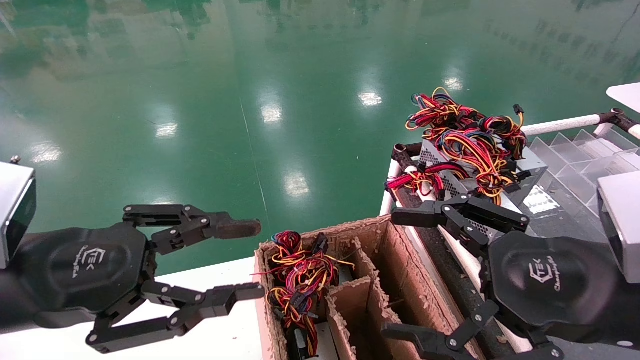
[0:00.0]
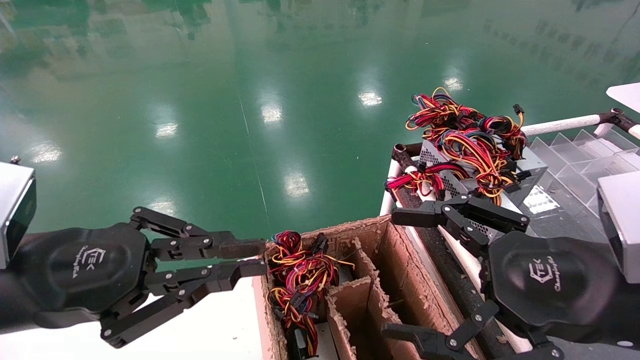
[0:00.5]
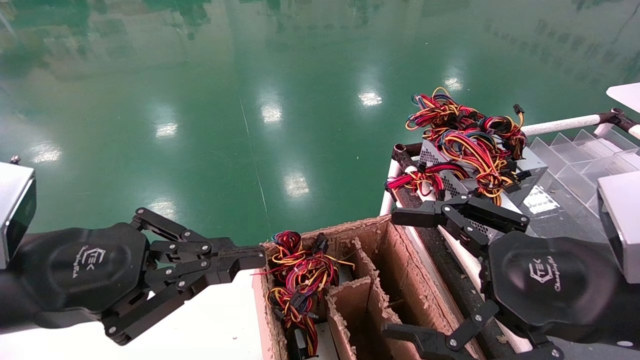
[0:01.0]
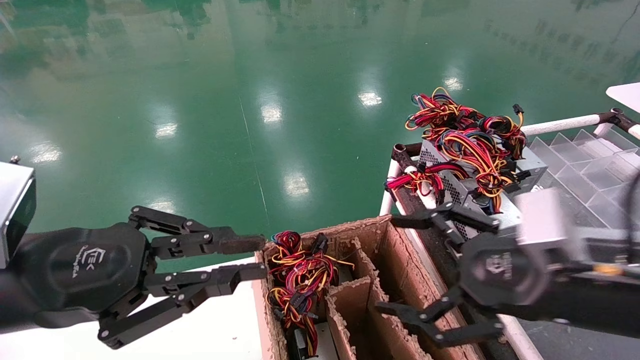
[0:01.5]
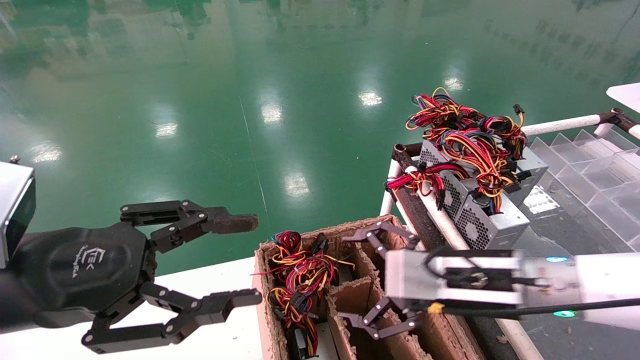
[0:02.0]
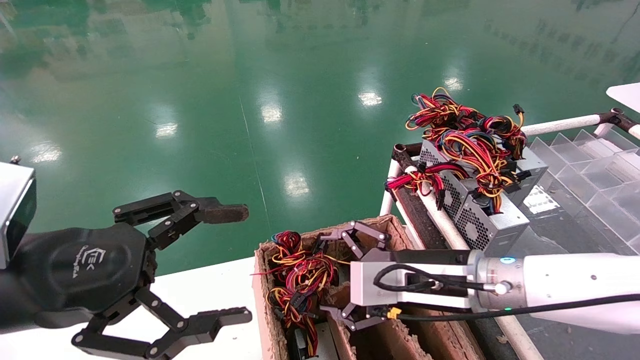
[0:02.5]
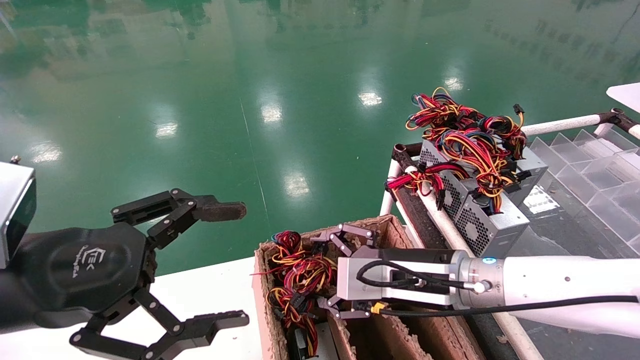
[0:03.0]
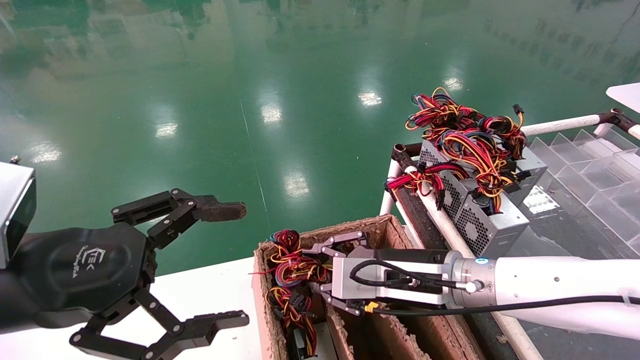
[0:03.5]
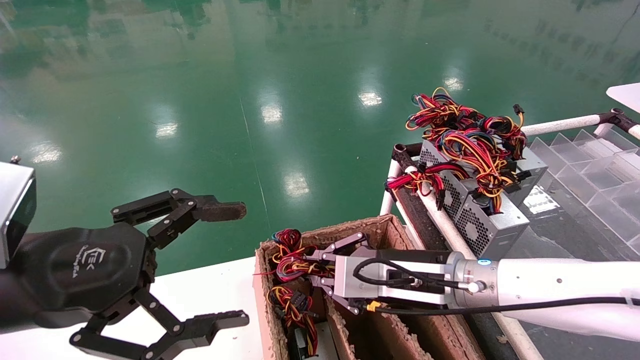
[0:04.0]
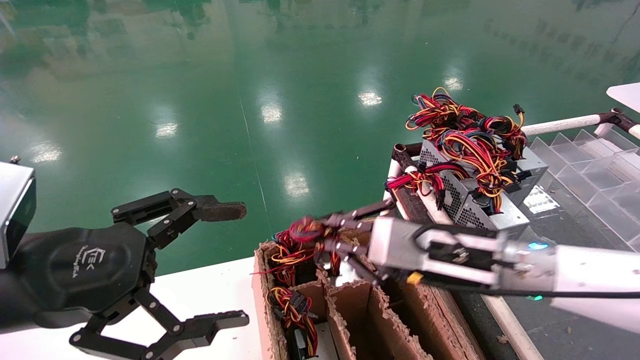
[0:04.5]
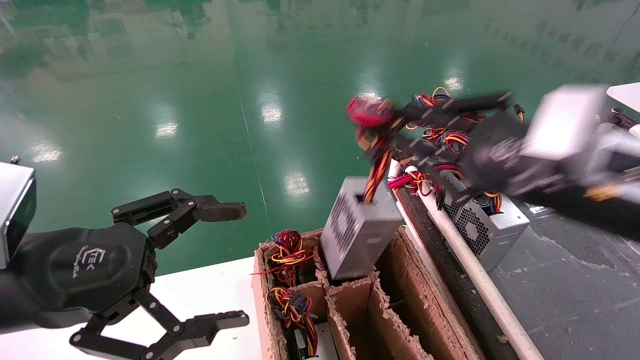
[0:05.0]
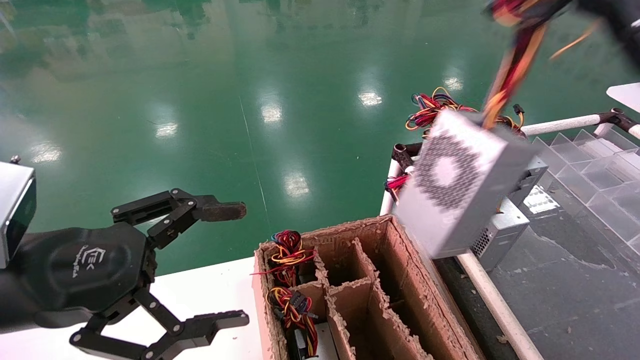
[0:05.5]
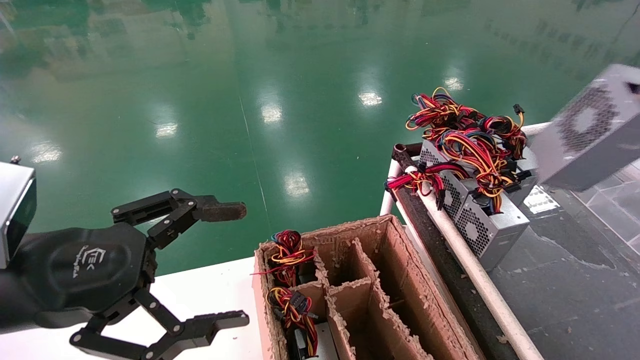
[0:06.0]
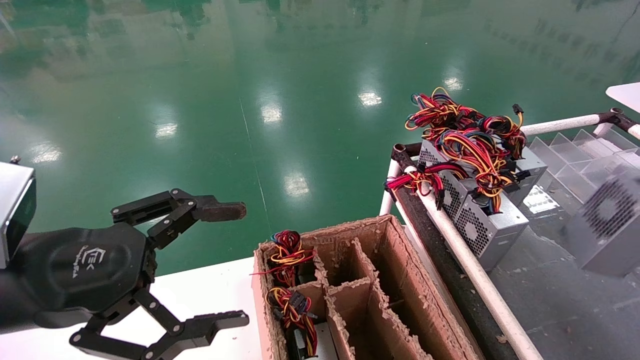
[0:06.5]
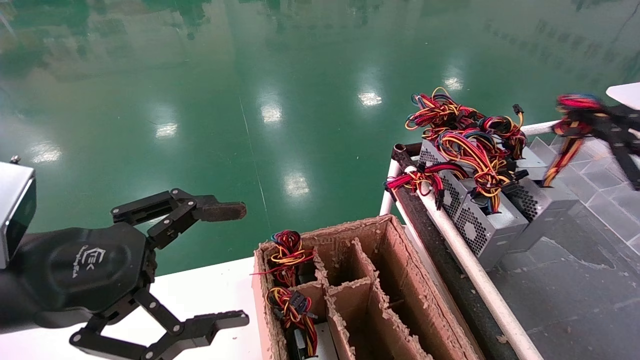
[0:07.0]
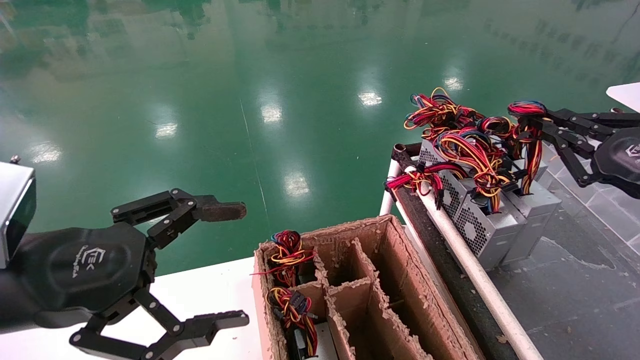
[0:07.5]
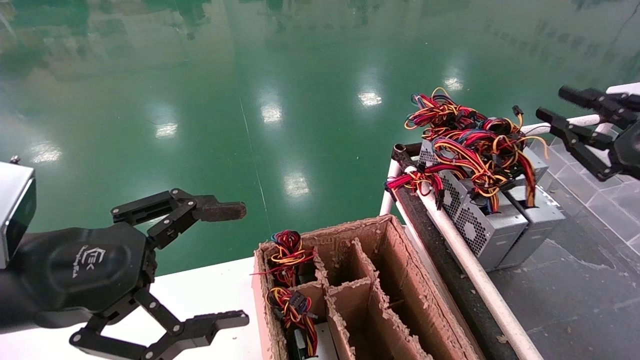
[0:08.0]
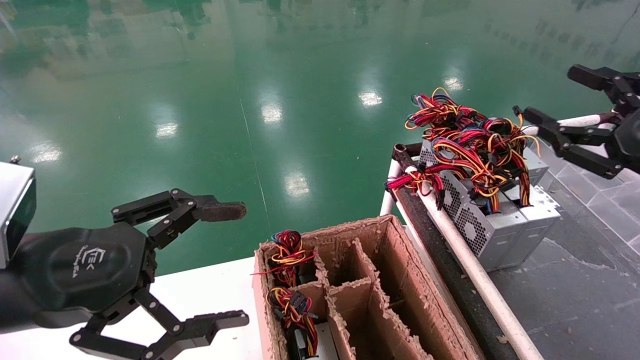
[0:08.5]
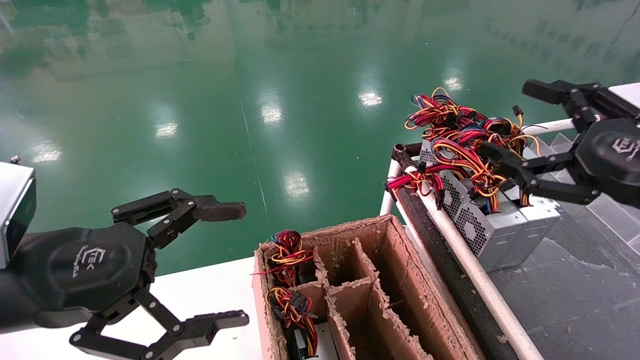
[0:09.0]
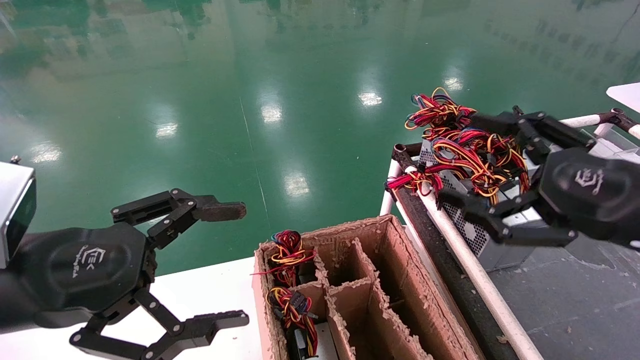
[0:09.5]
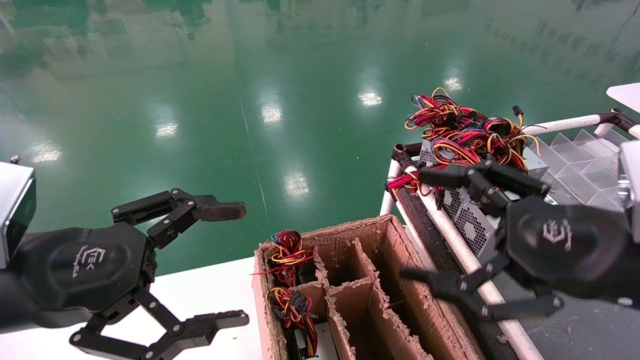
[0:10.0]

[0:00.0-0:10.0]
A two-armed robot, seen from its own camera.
Step, 0:01.0 to 0:04.0: Grab and lift the power supply from the large box.
Step, 0:04.5 to 0:07.5: Place the power supply on the operating table.
0:00.0 to 0:02.0: The left gripper closes, then opens again. Meanwhile the right gripper goes some 15 cm forward, to the left and downward.
0:02.0 to 0:04.0: The right gripper goes some 5 cm to the left, and closes its fingers, while the left gripper opens.
0:04.0 to 0:06.0: The right gripper heads to the right, upward and backward, covering some 40 cm.
0:06.0 to 0:08.0: The right gripper is displaced forward and downward by approximately 15 cm.
0:08.0 to 0:10.0: The right gripper travels to the left and backward by roughly 15 cm, and opens.

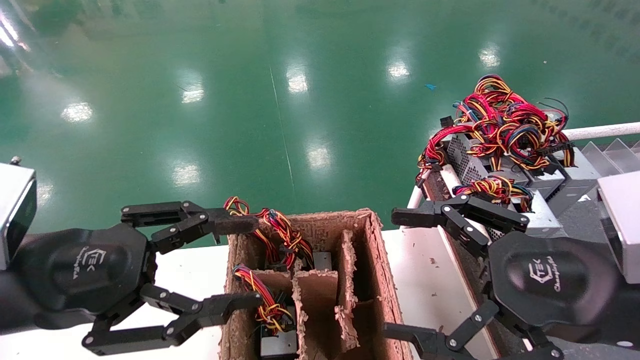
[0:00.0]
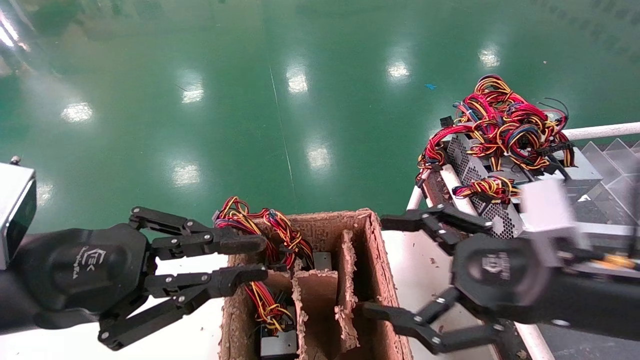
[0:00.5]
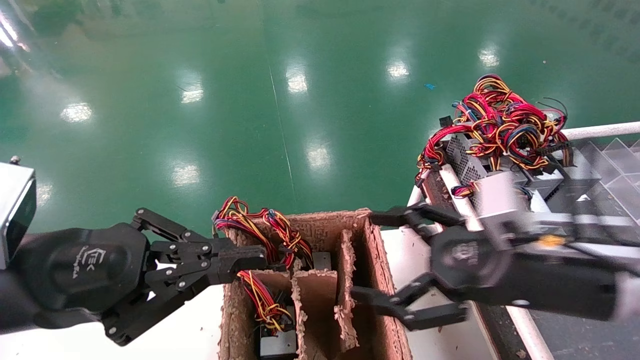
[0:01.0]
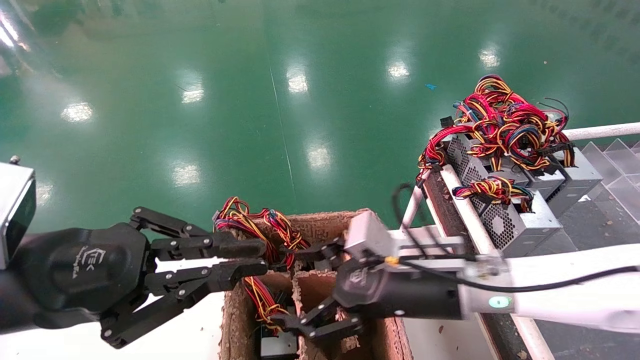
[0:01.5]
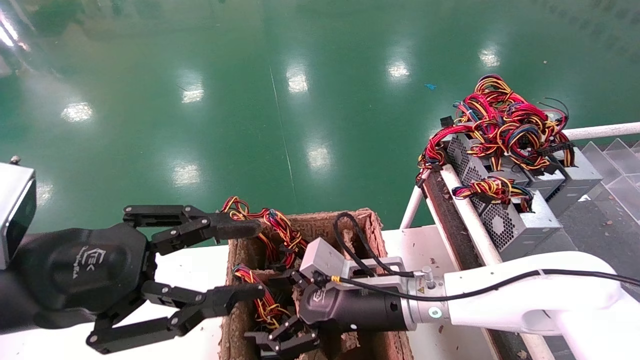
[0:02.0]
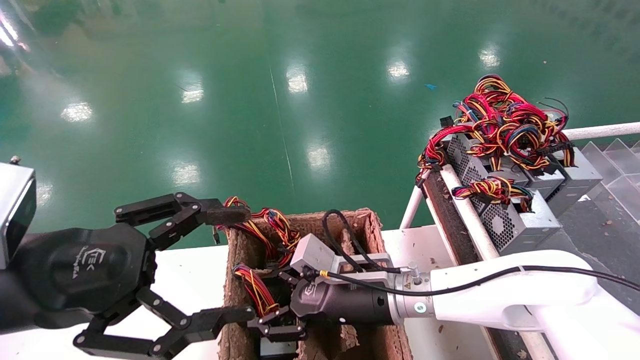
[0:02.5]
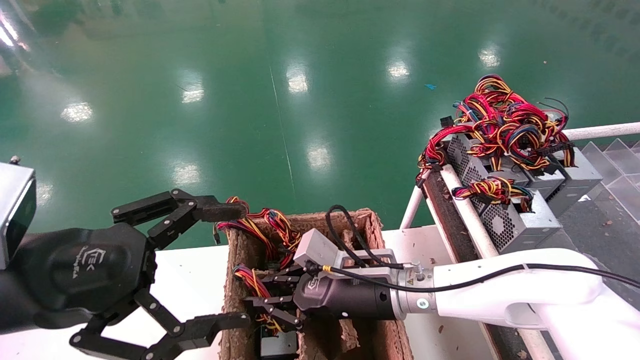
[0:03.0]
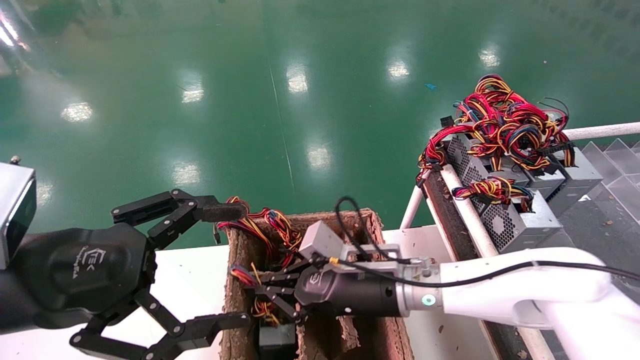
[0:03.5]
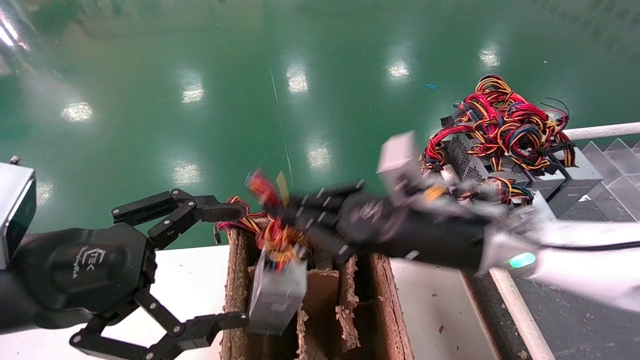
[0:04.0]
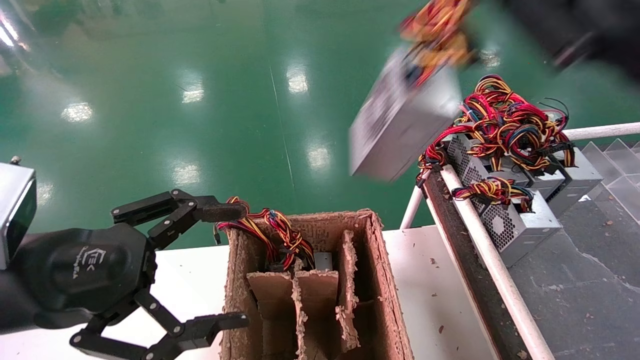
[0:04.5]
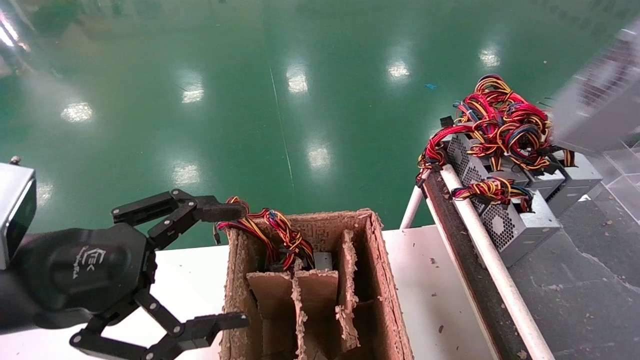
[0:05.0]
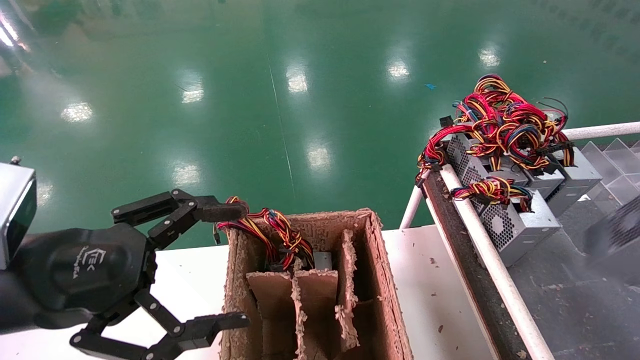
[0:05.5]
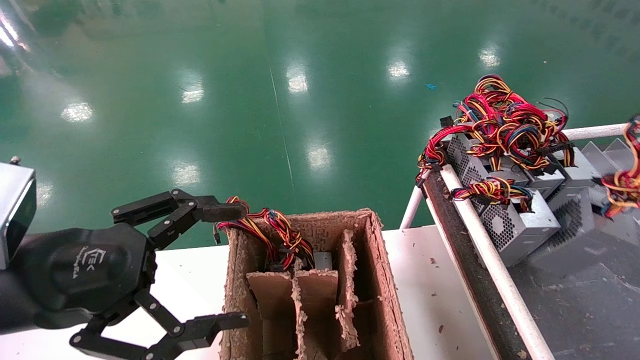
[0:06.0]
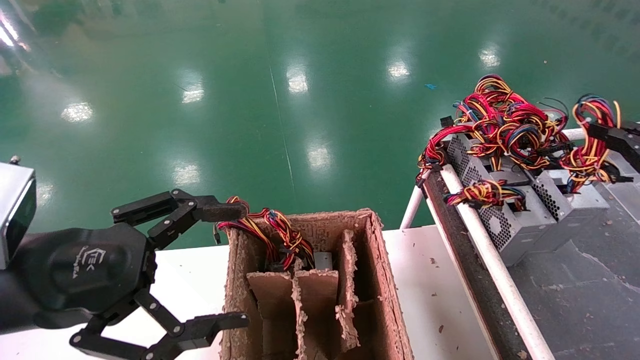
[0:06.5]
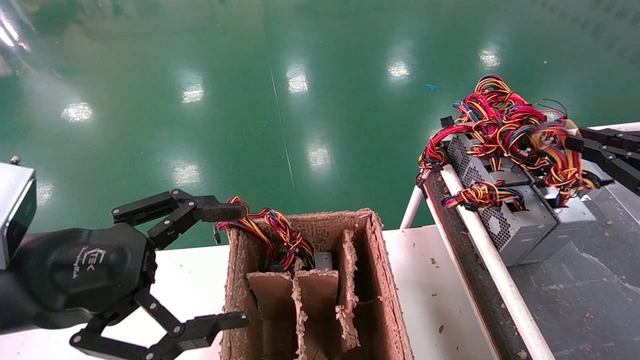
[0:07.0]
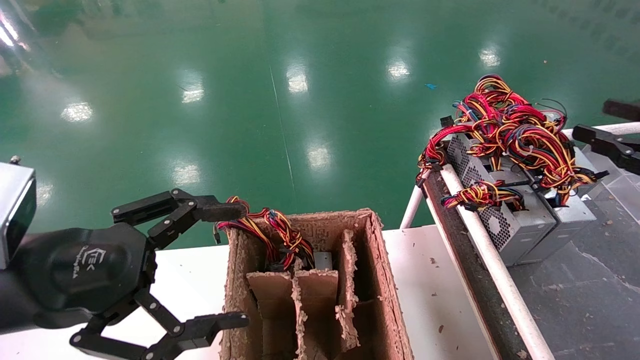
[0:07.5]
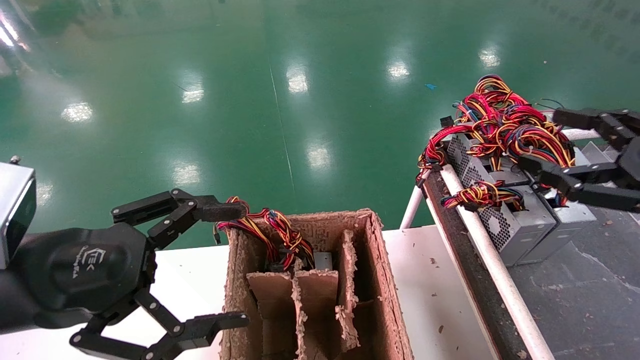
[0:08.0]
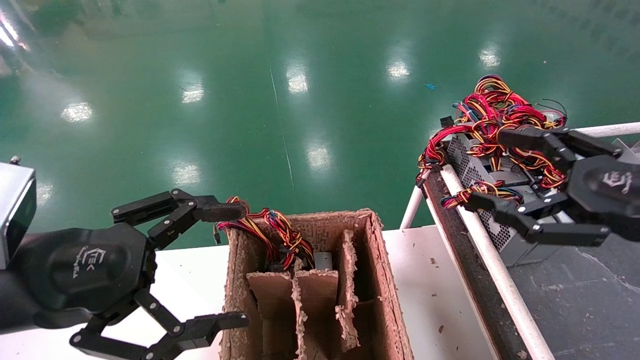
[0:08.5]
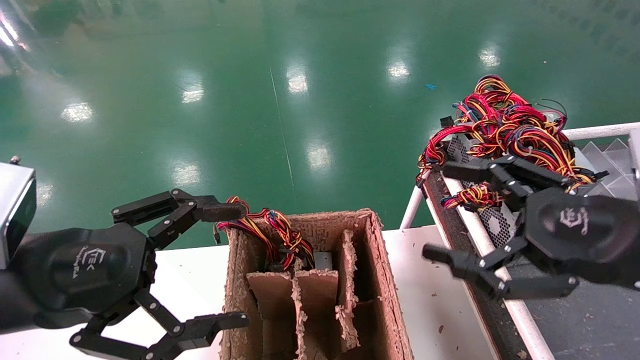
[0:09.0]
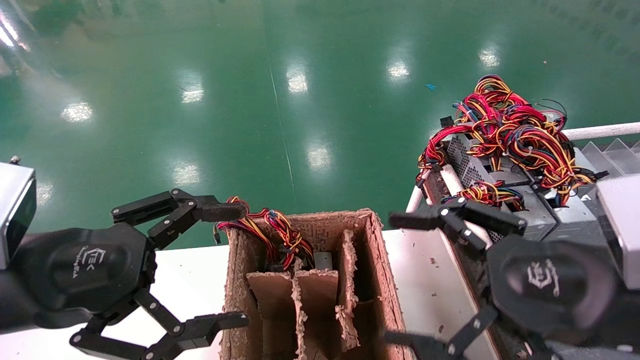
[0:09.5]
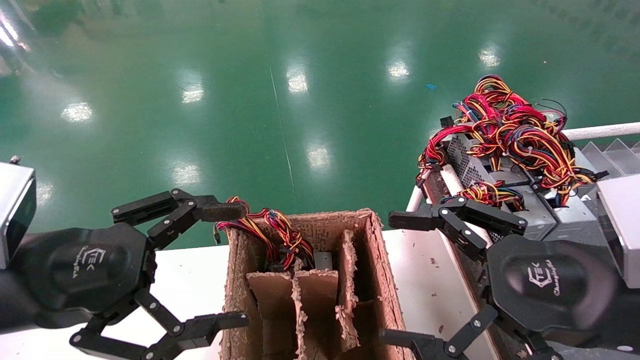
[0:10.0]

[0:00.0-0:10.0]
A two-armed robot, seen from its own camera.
Step, 0:01.5 to 0:04.5: Grab and lift the power supply from the large box.
Step, 0:05.0 to 0:07.5: Place the power supply on the operating table.
0:00.0 to 0:02.0: The right gripper travels to the left, forward and downward by roughly 25 cm.
0:02.0 to 0:04.0: The right gripper moves upward and to the right, roughly 15 cm, and closes. The left gripper opens up.
0:04.0 to 0:06.0: The right gripper heads to the right, covering some 35 cm.
0:06.0 to 0:08.0: The right gripper travels to the left by approximately 10 cm, and opens.
0:08.0 to 0:10.0: The right gripper heads to the left, covering about 15 cm.
